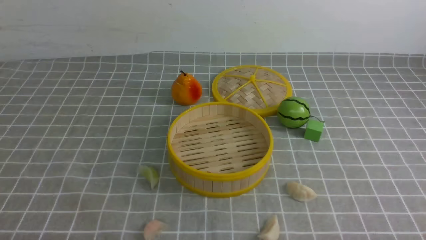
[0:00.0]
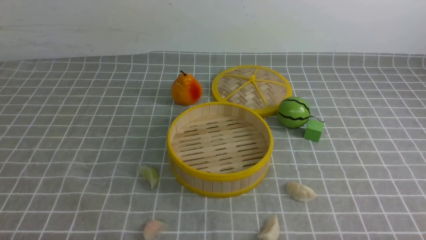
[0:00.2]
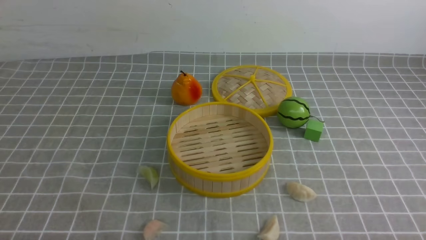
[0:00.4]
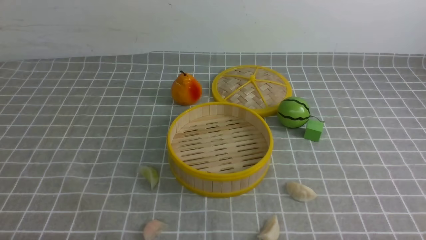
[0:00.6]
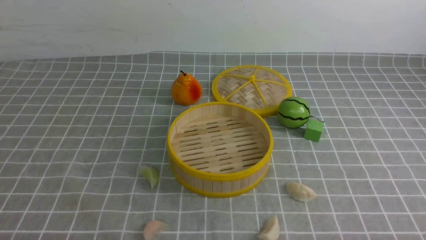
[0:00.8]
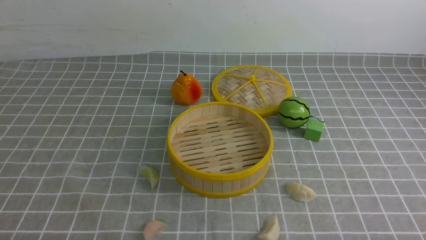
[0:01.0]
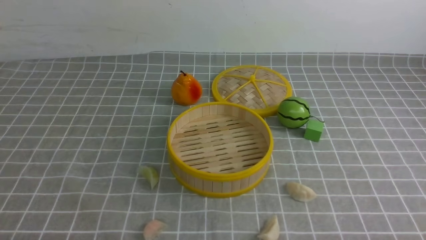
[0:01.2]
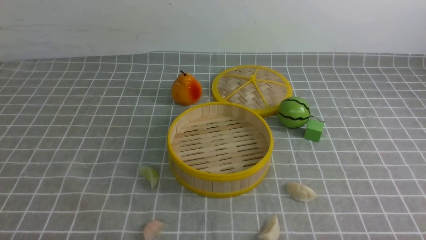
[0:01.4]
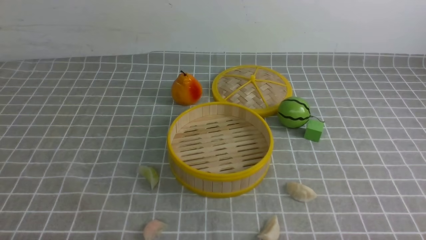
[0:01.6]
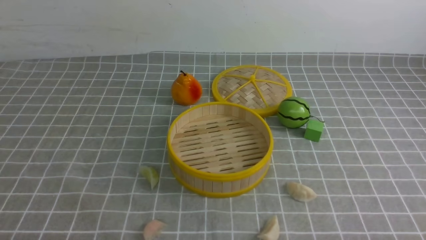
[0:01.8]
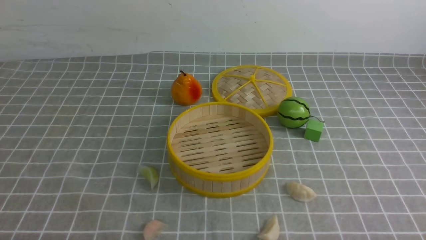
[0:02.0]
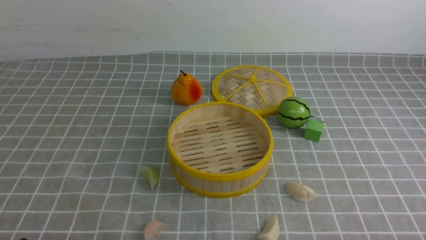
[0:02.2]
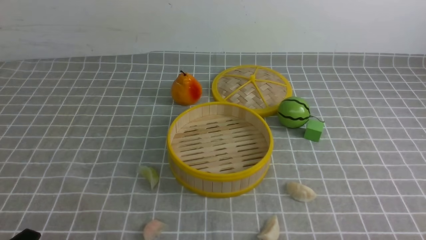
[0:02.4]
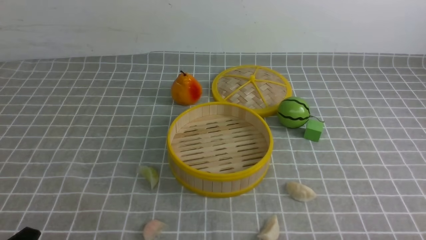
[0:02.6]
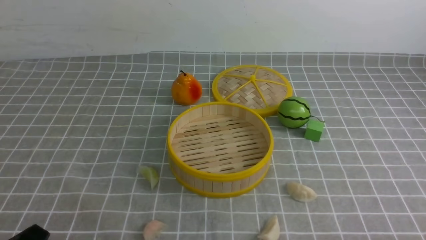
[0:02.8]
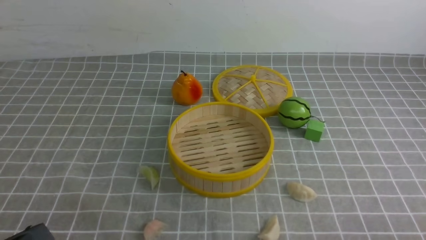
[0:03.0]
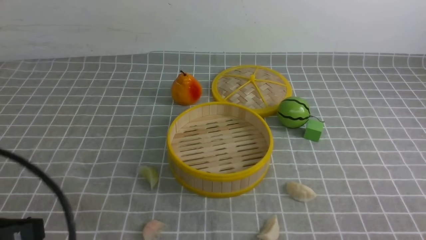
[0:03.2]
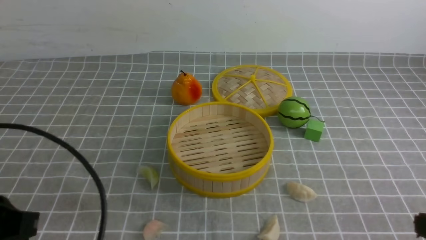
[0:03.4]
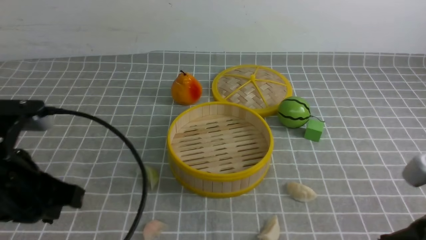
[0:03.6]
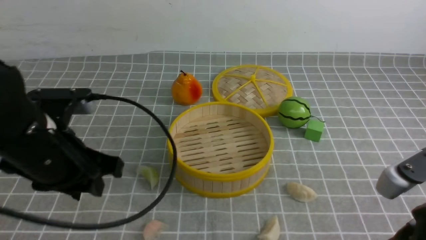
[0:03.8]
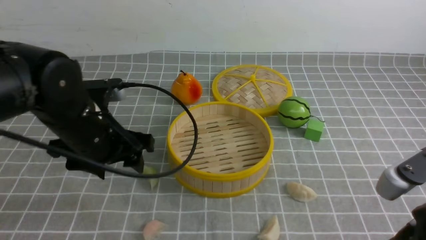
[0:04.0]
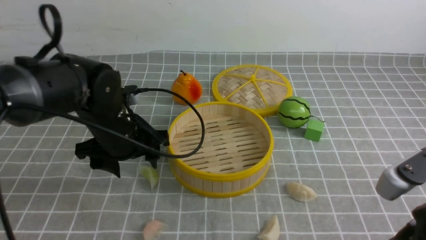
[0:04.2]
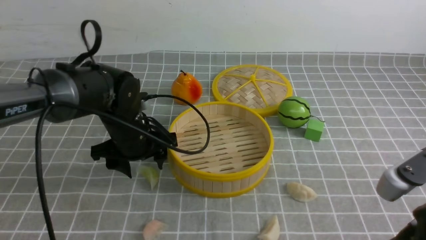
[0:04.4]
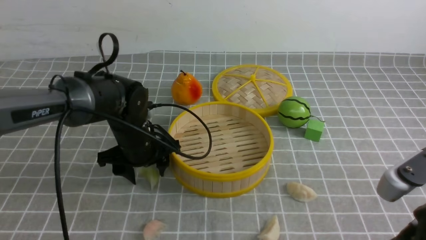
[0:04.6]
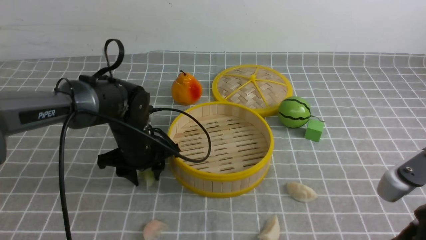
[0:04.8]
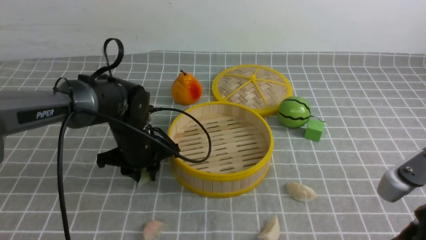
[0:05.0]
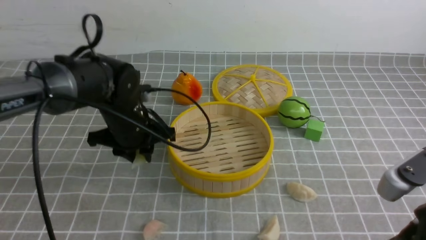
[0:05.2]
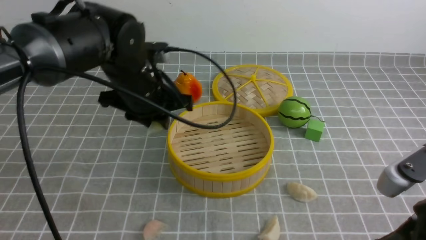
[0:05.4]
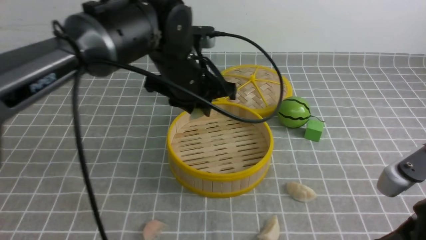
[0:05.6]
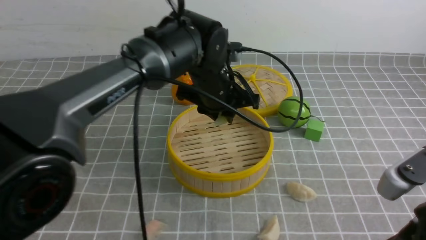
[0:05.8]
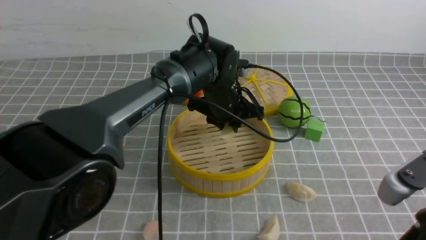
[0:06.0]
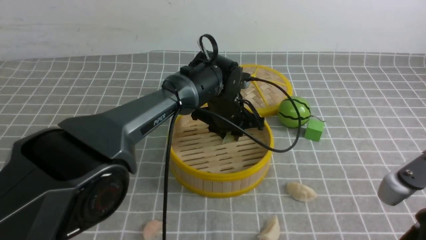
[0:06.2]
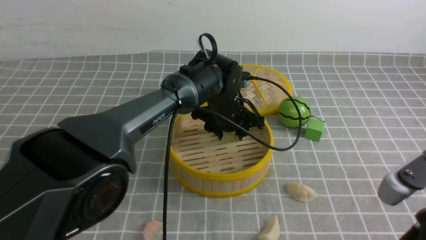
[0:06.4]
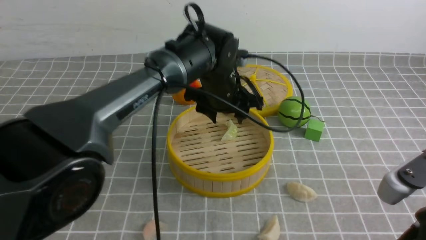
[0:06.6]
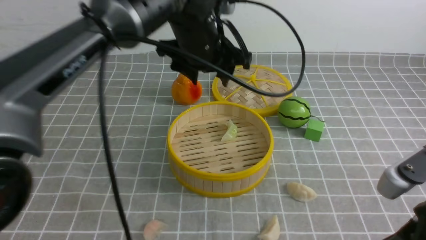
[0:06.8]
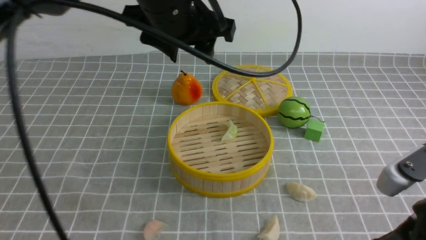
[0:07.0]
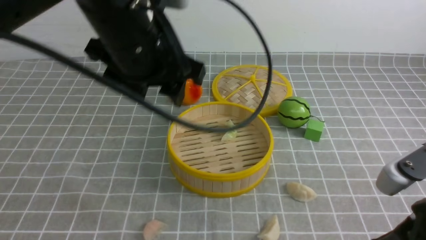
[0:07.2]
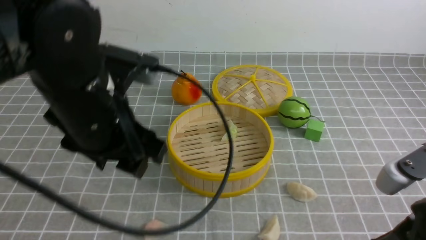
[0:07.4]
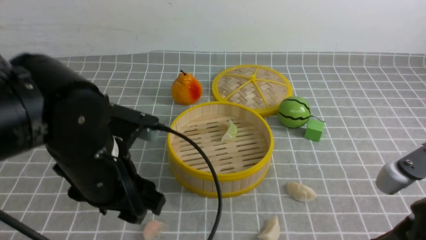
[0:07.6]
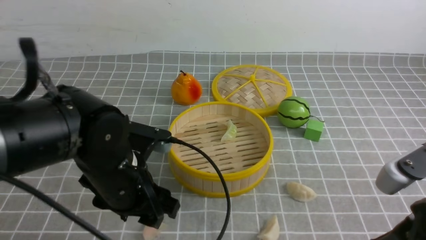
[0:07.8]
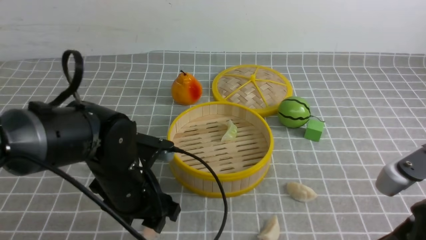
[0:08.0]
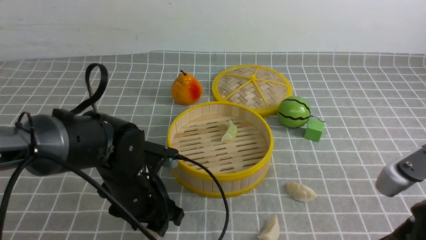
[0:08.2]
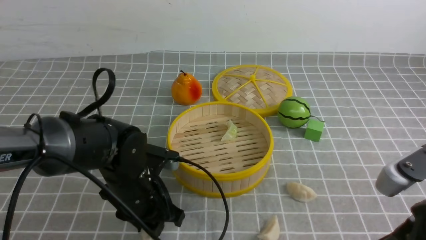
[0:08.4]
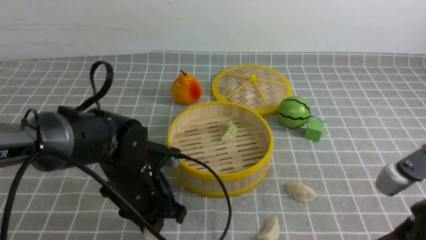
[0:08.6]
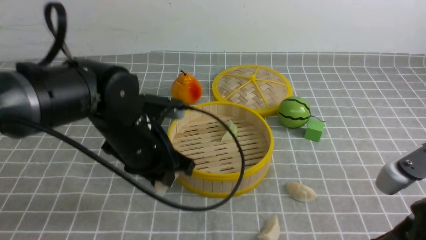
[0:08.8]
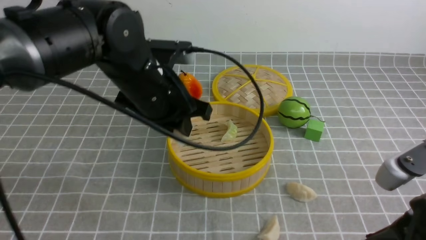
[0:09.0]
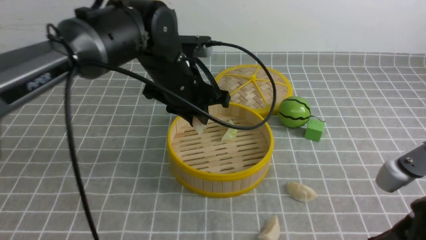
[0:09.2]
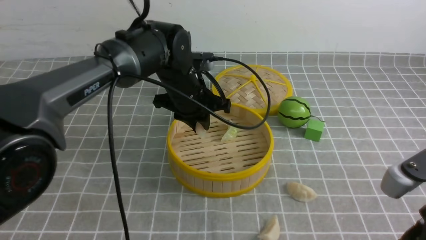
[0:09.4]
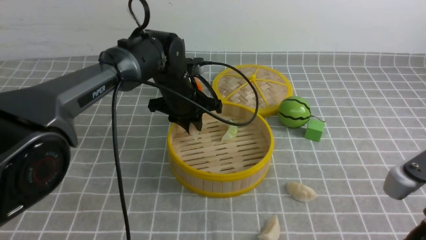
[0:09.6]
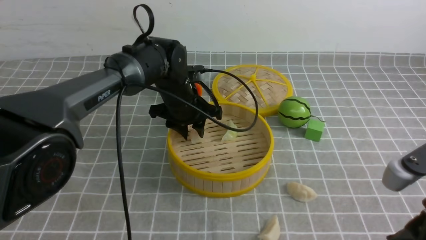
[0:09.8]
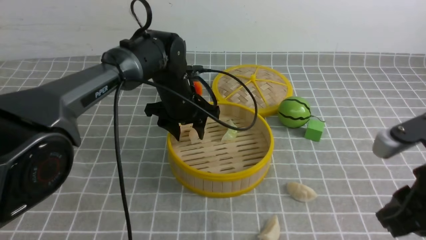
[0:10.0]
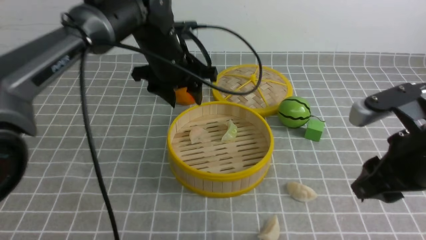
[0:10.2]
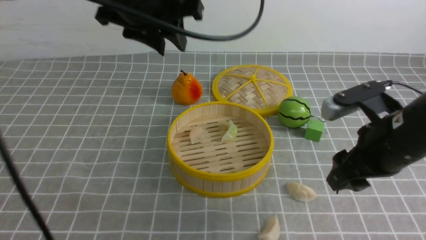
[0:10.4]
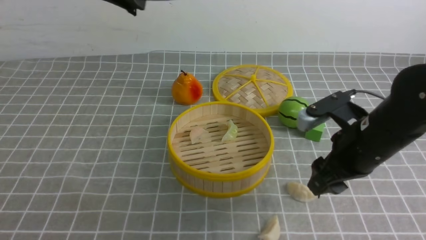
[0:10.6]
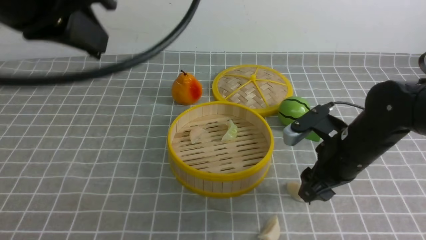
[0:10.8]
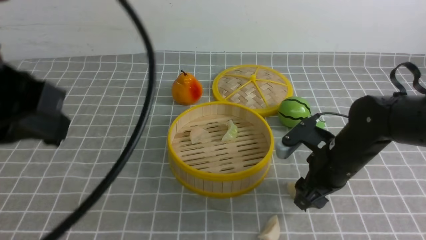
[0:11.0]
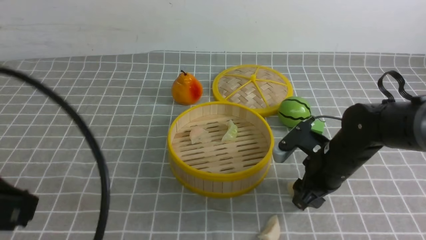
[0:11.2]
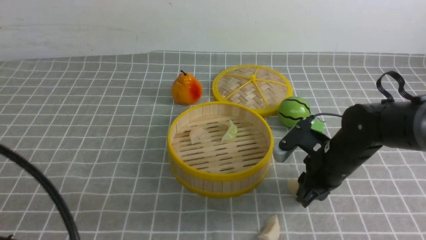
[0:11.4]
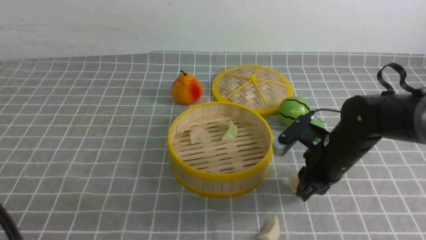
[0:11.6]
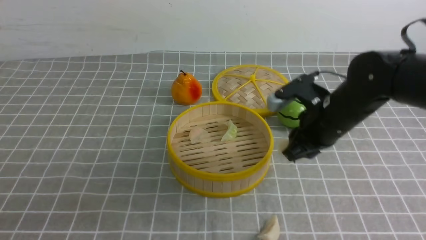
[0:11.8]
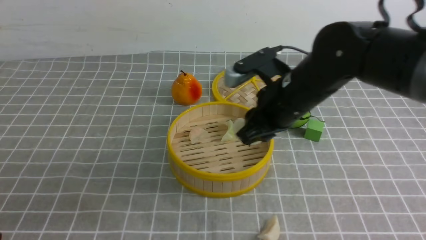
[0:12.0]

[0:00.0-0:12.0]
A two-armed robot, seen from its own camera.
Task of the whole recording: put the dumplings into the steamer on the table with the grey tablecloth.
Step, 0.0 to 5.0 s: use the left arm to grab a dumpling.
Step, 5.2 to 6.6 s: use the left arm to put the dumpling into the steamer.
Step, 7.0 to 8.6 s: use the left arm to grab a dumpling.
Step, 8.8 to 9.8 s: use the left arm to put the dumpling into the steamer.
Step, 10.2 to 11.6 s: use the right arm to grab a dumpling.
0.0 to 1.6 s: Both grippers stay about where they are.
3.0 to 4.4 s: The right gripper travels forward, upward and to the left by roughly 10 cm, while the left gripper heads forward, covering roughly 30 cm, and opens.
4.4 to 6.0 s: The left gripper travels to the right and forward by some 15 cm, and closes its fingers.
6.0 to 7.6 s: The left gripper goes approximately 25 cm backward and to the left, and opens its fingers.
7.6 to 9.0 s: The left gripper heads forward, covering approximately 10 cm, moves about 10 cm downward and comes back, and closes up.
9.0 to 10.4 s: The right gripper moves forward, approximately 10 cm, and opens its fingers; the left gripper goes approximately 15 cm upward.
10.4 to 12.0 s: The left gripper is displaced backward and to the left by some 30 cm, and closes its fingers, while the right gripper goes about 15 cm to the left and forward, goes downward and returns, approximately 10 cm each way, and closes up.

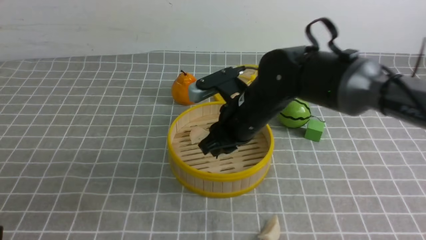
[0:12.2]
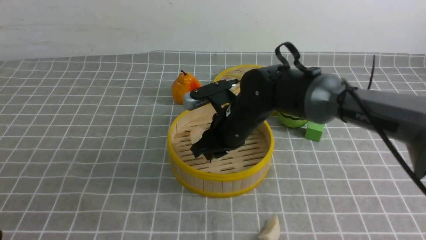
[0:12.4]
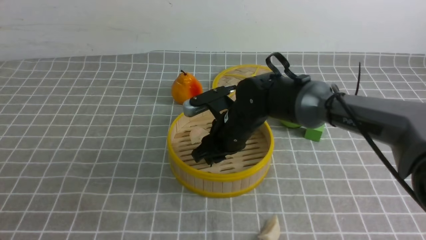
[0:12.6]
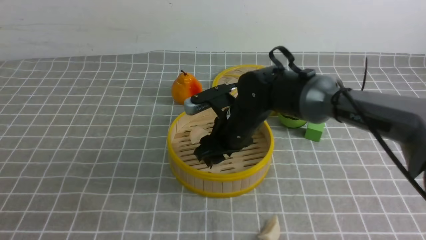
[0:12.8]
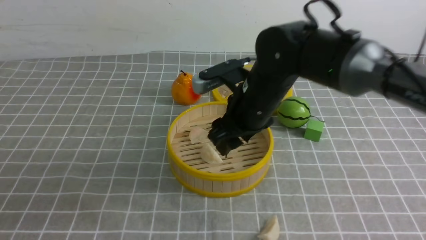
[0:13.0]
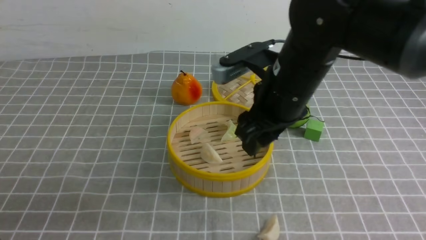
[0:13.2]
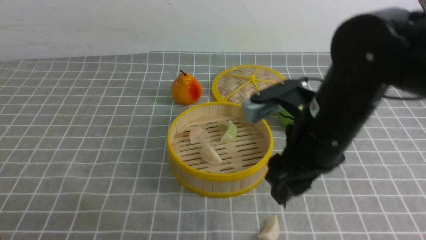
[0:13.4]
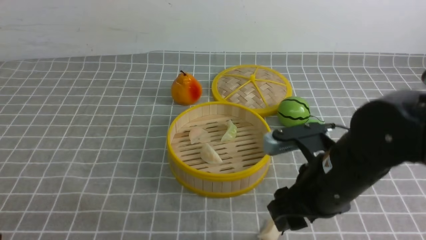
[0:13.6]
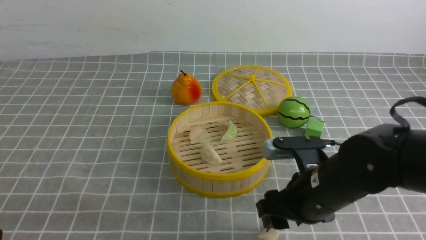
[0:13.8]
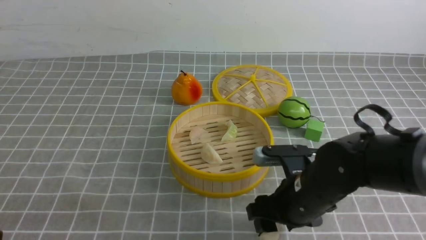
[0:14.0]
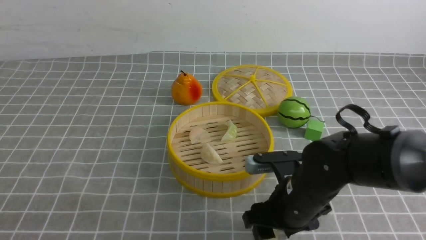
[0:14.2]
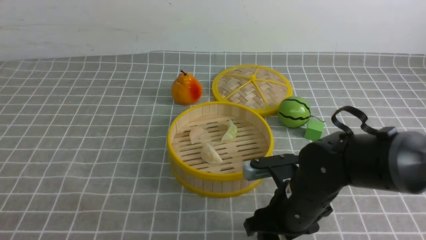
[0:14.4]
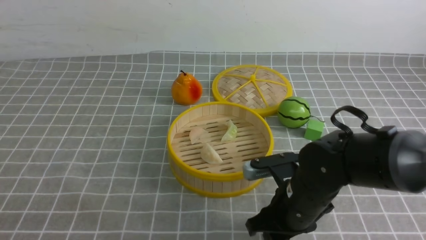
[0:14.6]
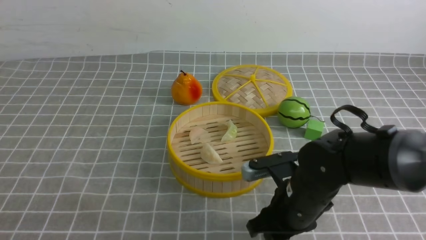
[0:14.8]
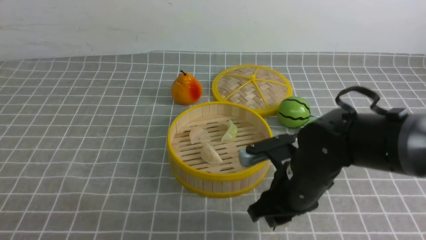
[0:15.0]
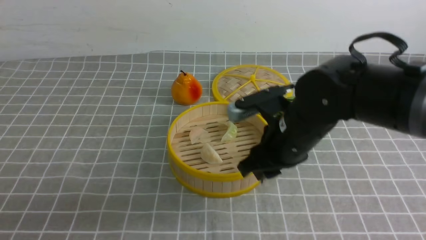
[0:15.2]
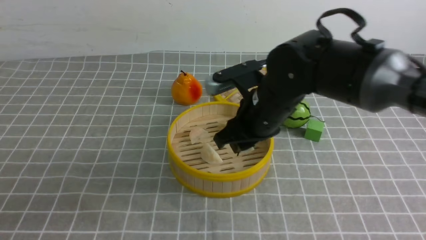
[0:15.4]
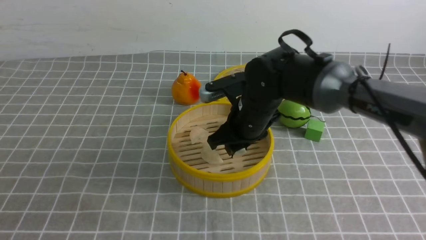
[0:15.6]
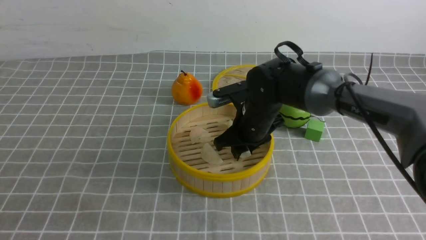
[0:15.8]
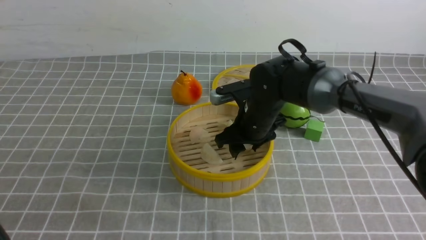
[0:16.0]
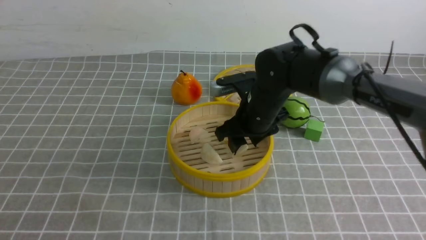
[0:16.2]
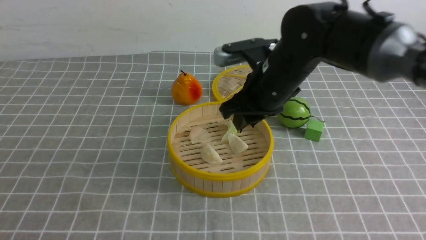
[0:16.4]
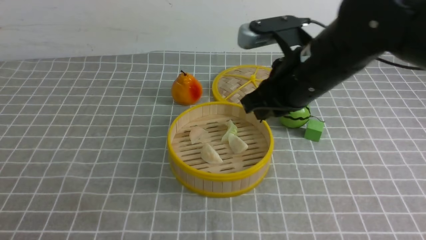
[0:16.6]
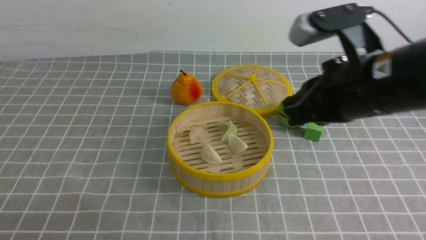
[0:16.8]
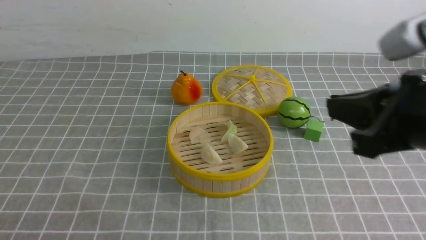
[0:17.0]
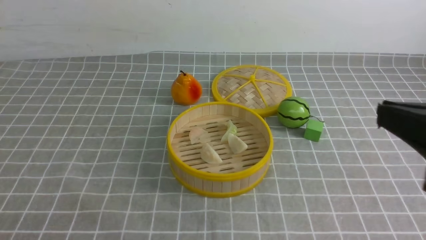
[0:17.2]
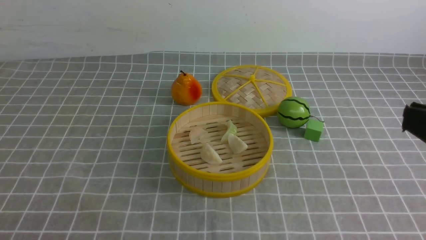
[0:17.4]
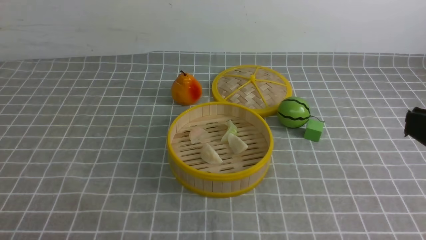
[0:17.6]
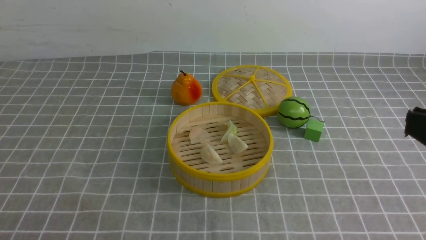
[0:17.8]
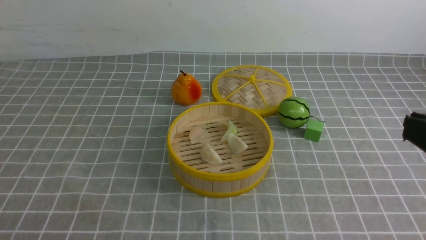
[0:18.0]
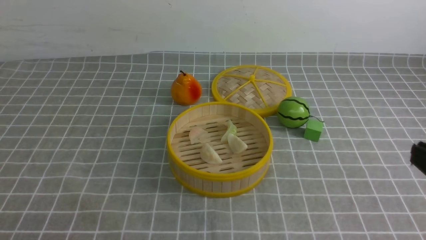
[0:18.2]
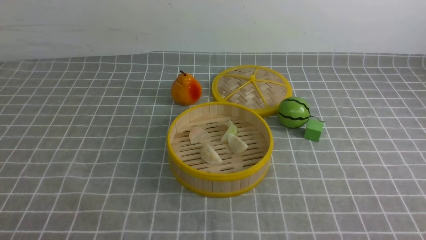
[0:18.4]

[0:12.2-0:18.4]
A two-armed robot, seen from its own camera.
Task of the whole recording: put the dumplings into the steamer on the table with the grey tablecloth.
Step, 13.0 to 15.0 s: use the right arm to grab a dumpling.
Step, 15.2 to 16.4 s: use the right arm to put the dumpling into the steamer.
12.2 to 13.8 s: The right gripper moves backward and to the right, roughly 15 cm, and opens.
13.8 to 15.4 s: The right gripper is displaced forward, to the left and upward by about 10 cm, and closes.
15.4 to 16.8 s: The right gripper travels upward, backward and to the right by approximately 20 cm, and closes. The left gripper heads downward, covering some 10 cm.
16.8 to 18.4 s: The right gripper moves backward, to the right and downward, about 25 cm.
